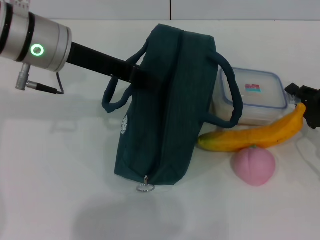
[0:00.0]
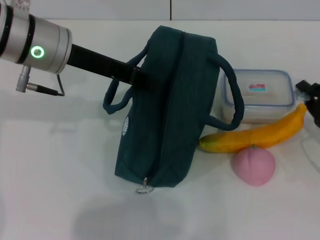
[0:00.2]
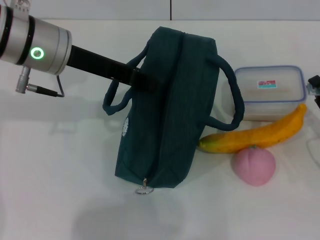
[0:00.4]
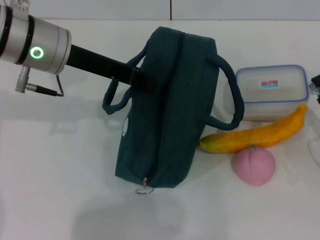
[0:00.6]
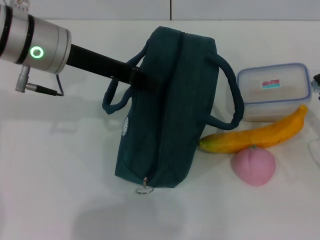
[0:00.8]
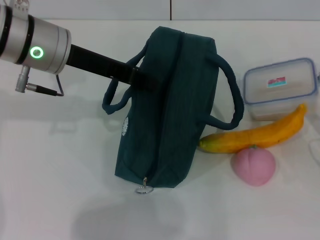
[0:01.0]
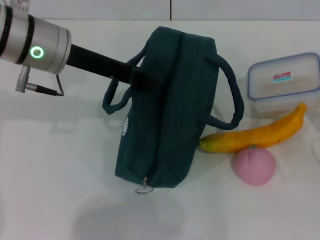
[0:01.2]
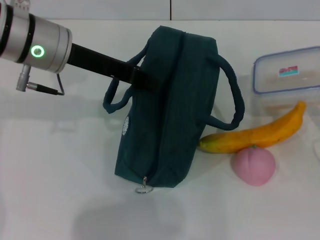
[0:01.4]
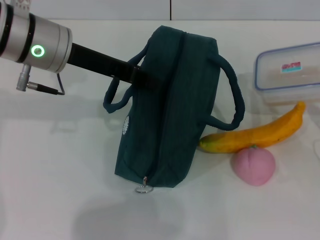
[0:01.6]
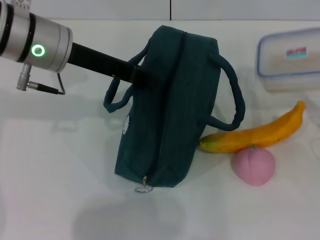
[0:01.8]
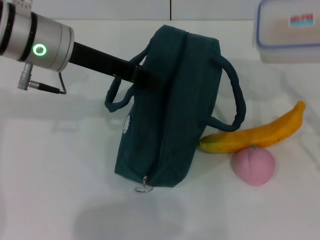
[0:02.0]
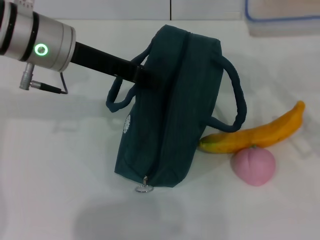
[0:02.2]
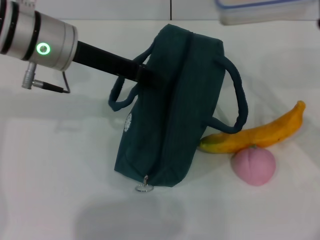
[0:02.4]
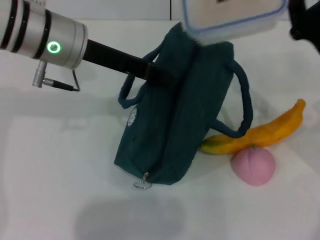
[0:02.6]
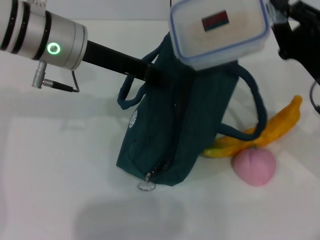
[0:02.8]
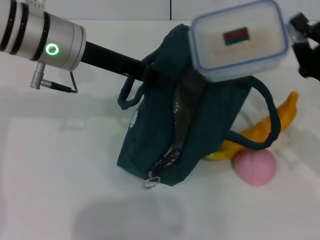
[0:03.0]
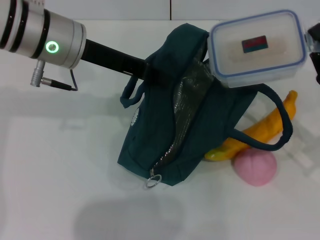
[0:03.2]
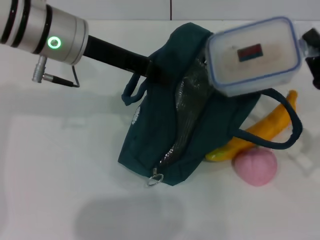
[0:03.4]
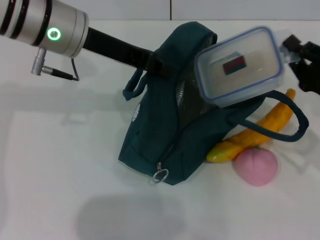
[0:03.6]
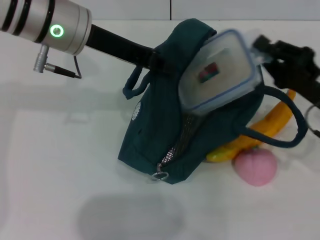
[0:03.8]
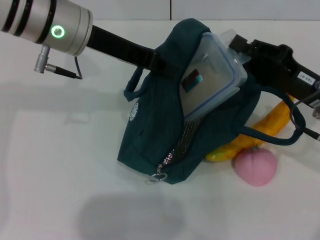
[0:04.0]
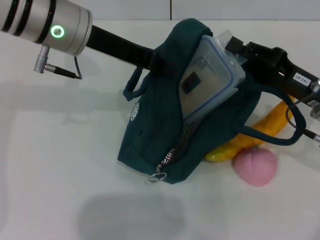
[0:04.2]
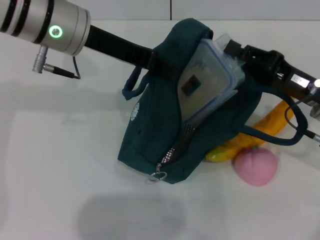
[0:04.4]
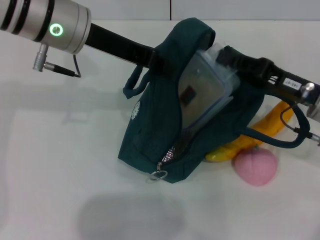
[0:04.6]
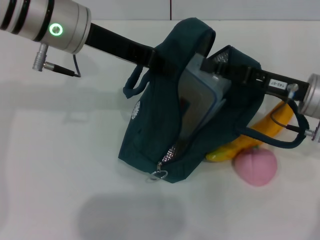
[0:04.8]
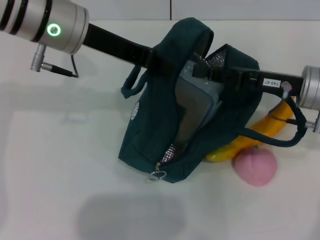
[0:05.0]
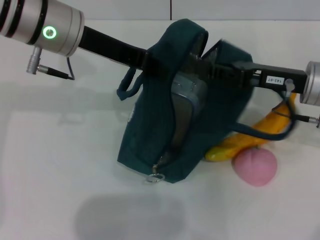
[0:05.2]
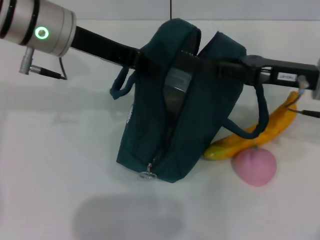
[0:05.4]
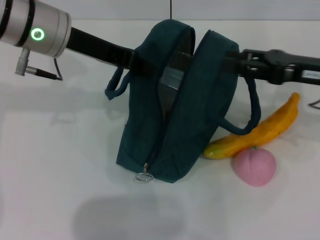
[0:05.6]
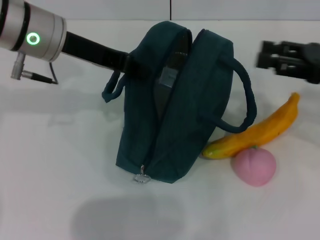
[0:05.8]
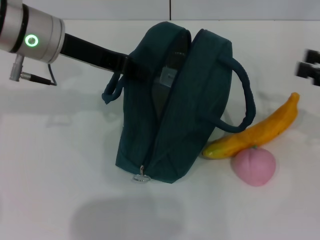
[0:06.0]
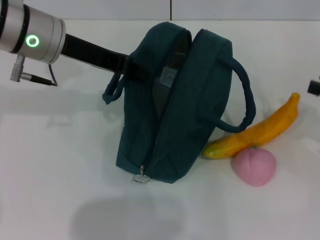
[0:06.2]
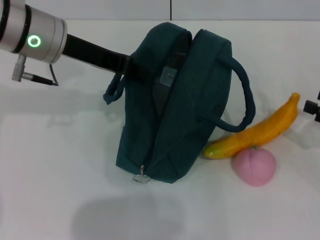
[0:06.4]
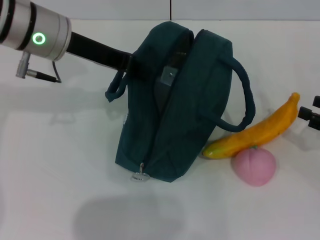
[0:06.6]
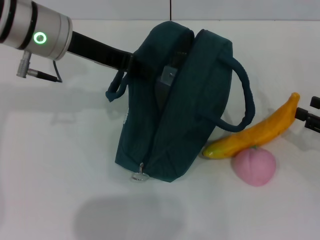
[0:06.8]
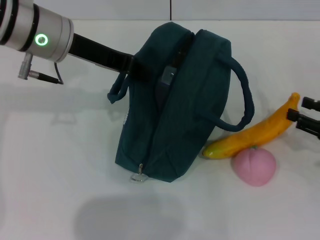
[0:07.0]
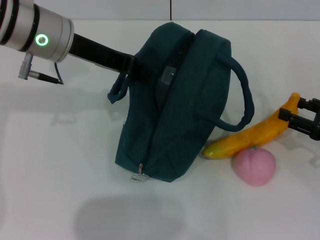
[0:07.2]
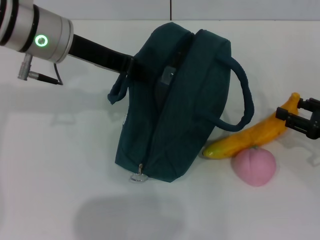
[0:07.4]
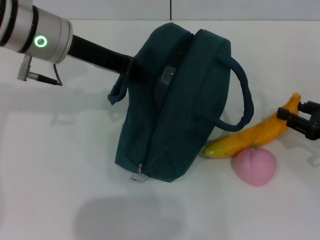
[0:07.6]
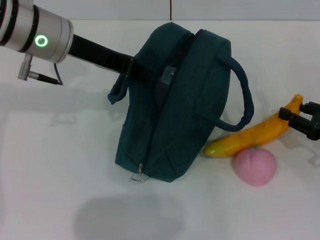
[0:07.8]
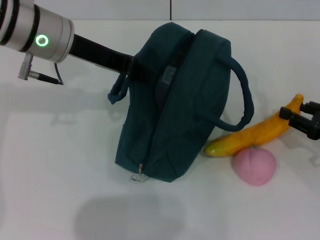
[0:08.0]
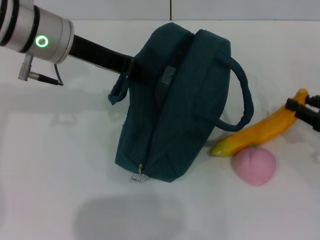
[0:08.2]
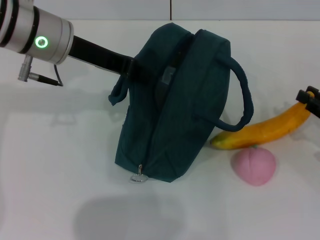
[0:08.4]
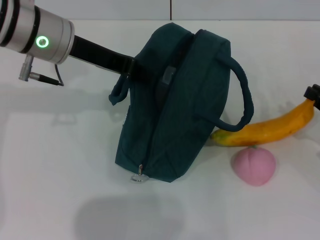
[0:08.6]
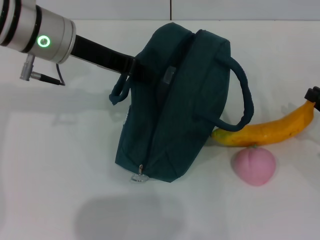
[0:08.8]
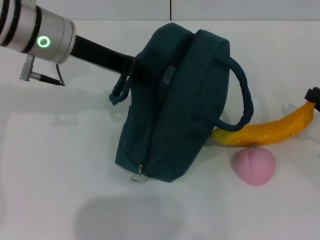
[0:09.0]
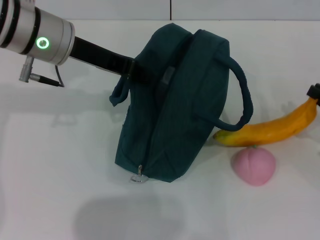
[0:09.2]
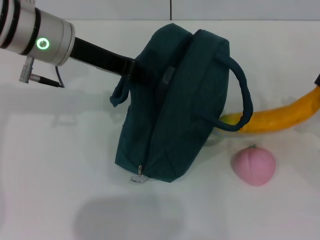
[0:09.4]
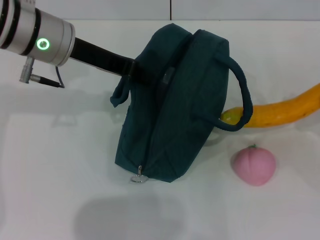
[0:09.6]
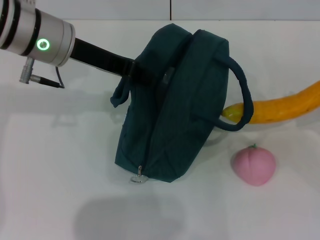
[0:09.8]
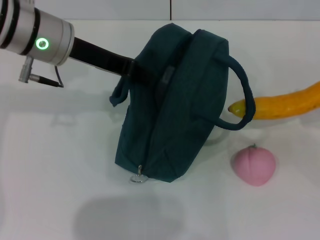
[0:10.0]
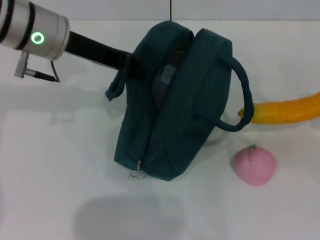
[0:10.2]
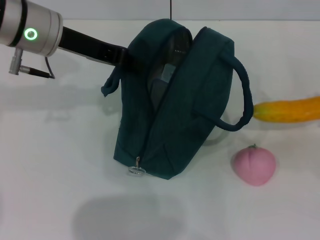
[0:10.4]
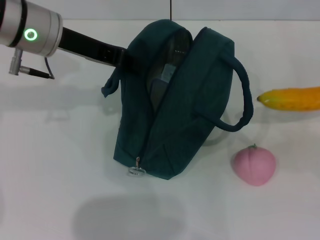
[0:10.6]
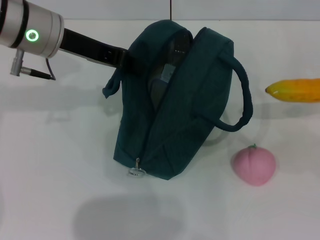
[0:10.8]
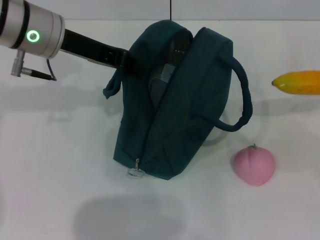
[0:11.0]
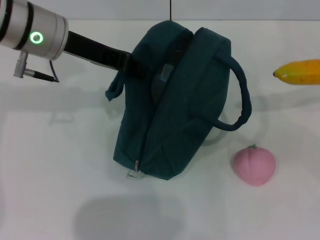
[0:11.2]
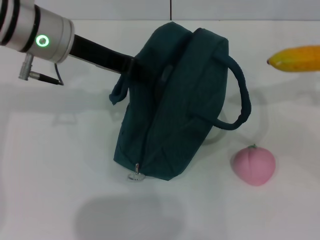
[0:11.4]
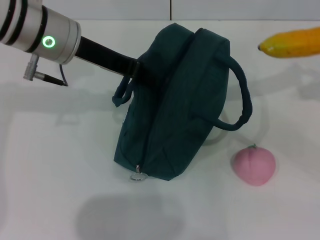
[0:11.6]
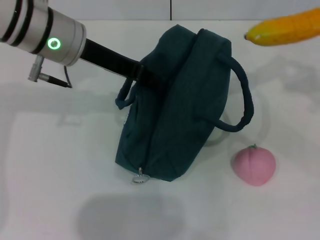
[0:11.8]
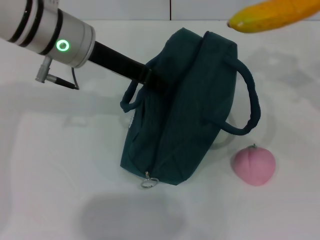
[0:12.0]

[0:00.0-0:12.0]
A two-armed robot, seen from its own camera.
Step, 0:00.0 to 0:05.4: Place the lunch box into the lunch bag with your right hand.
Step, 0:05.6 to 0:08.6: Take the banana with your right hand.
0:01.6 to 0:03.0: The right gripper goes about 5 cm to the left.
0:04.4 to 0:06.0: The right gripper travels to the right and upward by approximately 15 cm, and opens.
0:06.0 to 0:07.6: The right gripper shifts some 10 cm downward.
0:07.6 to 0:09.0: The right gripper closes.
0:09.0 to 0:10.4: The right gripper changes place by approximately 5 cm.
0:10.4 to 0:12.0: The right gripper travels upward, forward and to the left by roughly 15 cm.

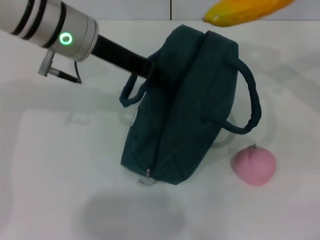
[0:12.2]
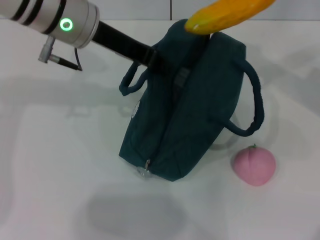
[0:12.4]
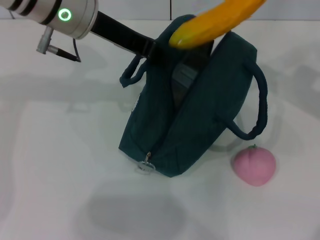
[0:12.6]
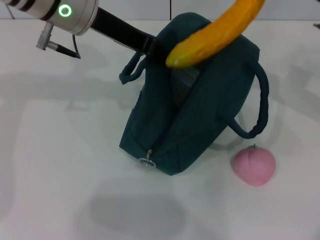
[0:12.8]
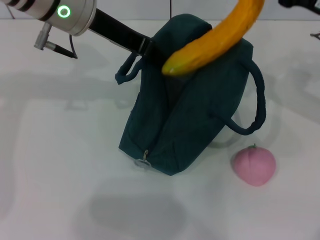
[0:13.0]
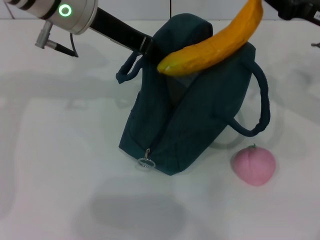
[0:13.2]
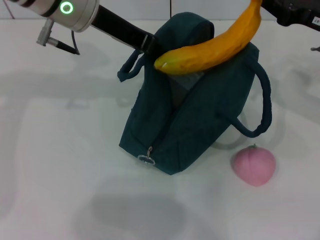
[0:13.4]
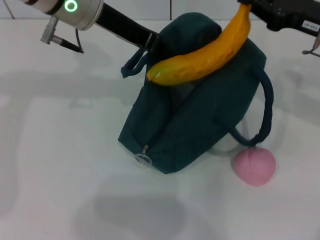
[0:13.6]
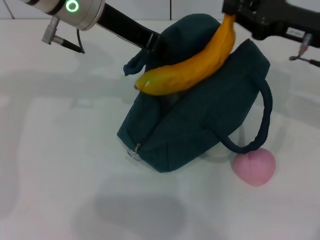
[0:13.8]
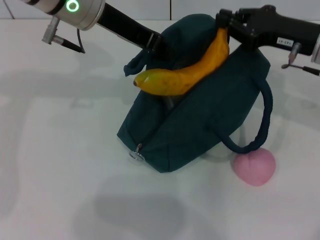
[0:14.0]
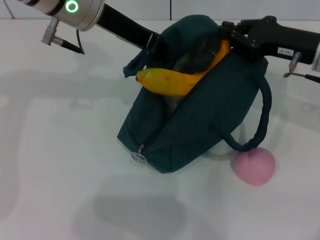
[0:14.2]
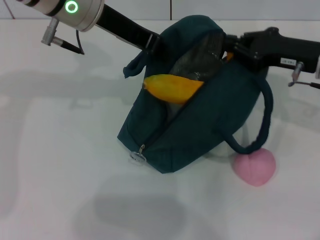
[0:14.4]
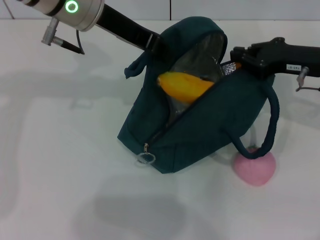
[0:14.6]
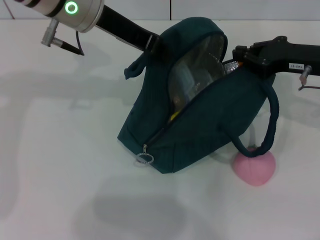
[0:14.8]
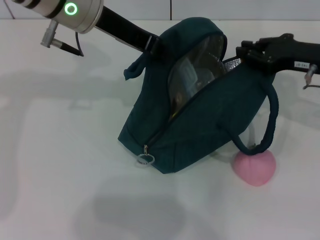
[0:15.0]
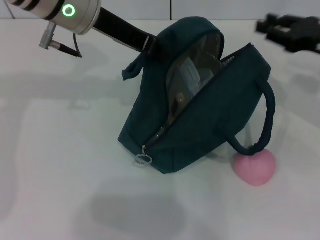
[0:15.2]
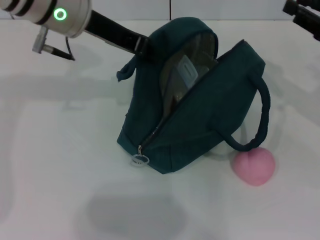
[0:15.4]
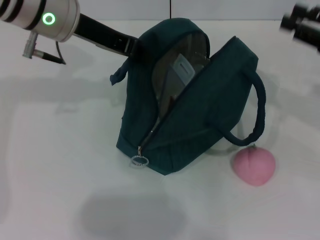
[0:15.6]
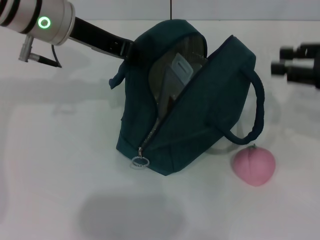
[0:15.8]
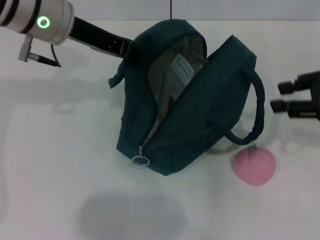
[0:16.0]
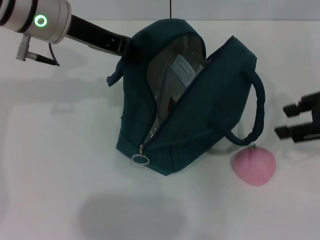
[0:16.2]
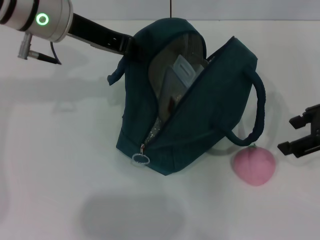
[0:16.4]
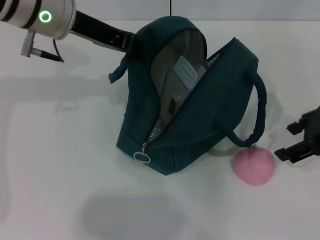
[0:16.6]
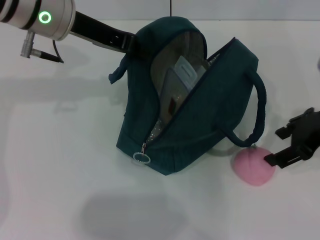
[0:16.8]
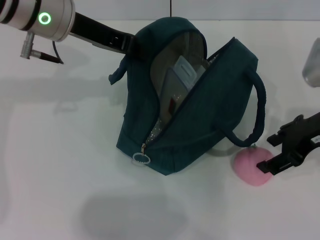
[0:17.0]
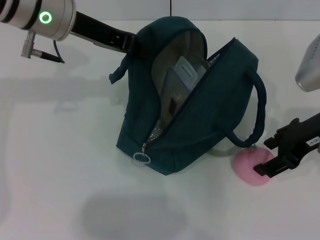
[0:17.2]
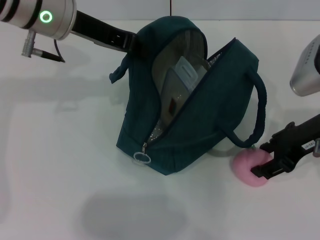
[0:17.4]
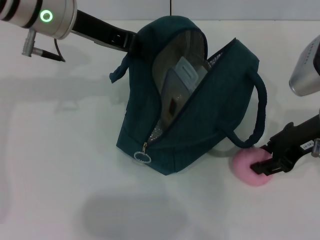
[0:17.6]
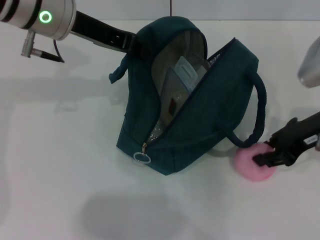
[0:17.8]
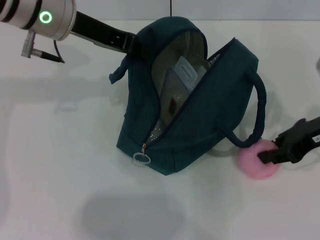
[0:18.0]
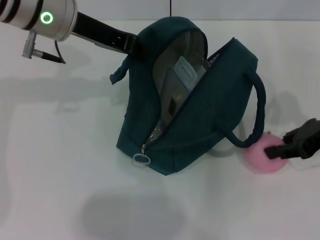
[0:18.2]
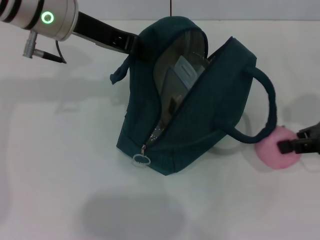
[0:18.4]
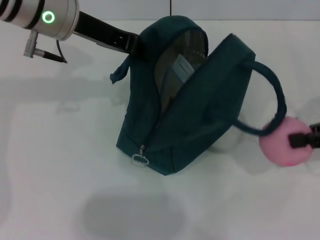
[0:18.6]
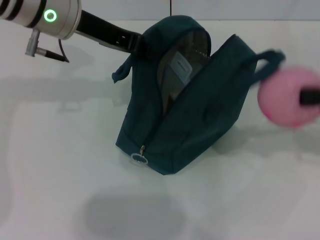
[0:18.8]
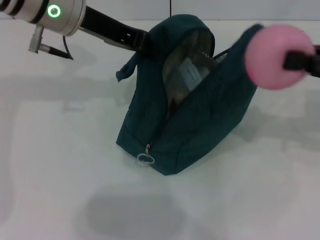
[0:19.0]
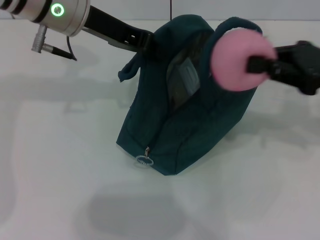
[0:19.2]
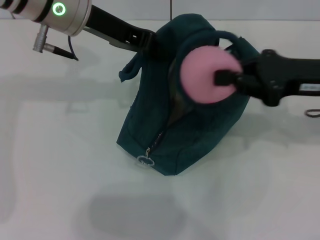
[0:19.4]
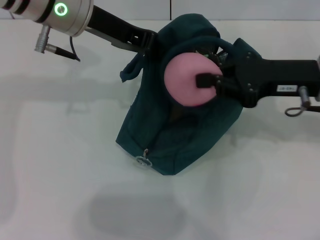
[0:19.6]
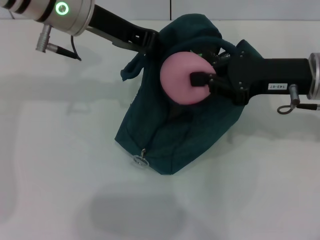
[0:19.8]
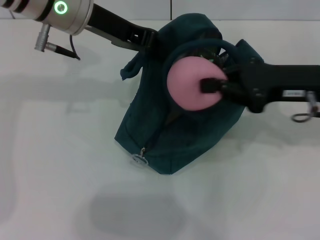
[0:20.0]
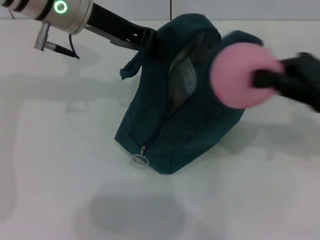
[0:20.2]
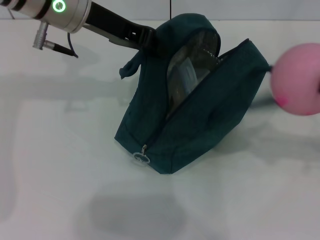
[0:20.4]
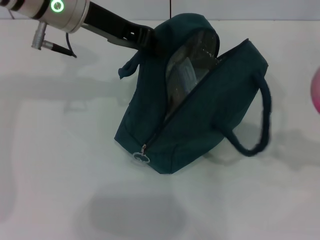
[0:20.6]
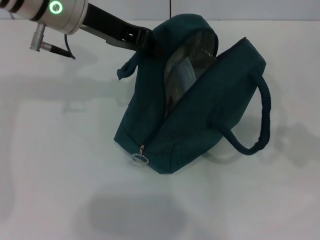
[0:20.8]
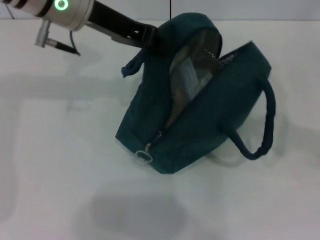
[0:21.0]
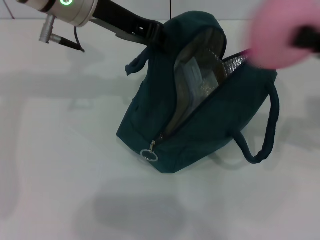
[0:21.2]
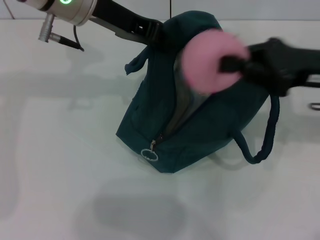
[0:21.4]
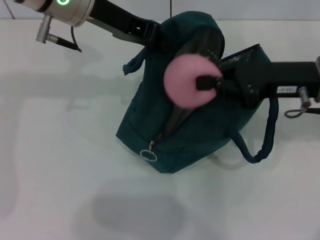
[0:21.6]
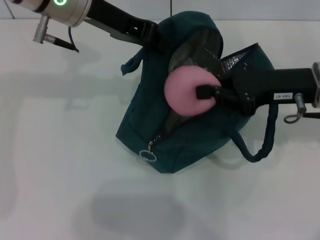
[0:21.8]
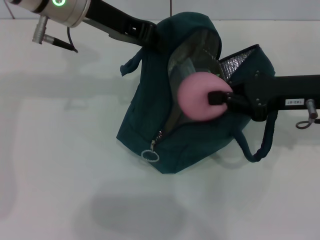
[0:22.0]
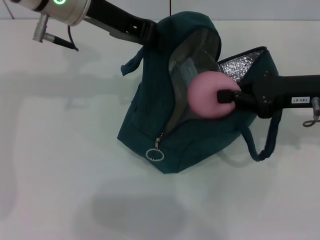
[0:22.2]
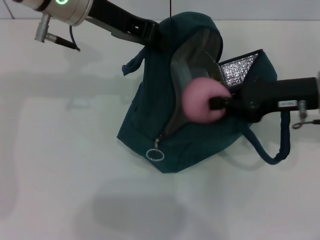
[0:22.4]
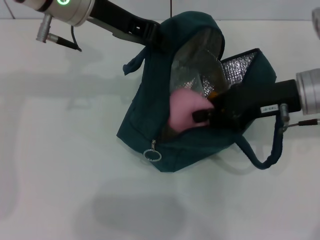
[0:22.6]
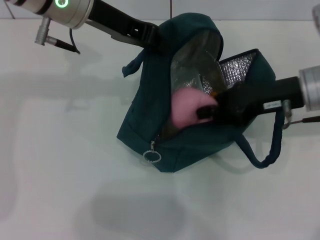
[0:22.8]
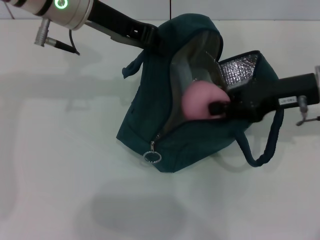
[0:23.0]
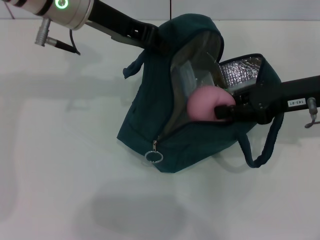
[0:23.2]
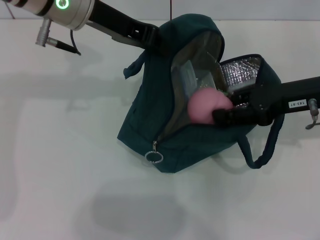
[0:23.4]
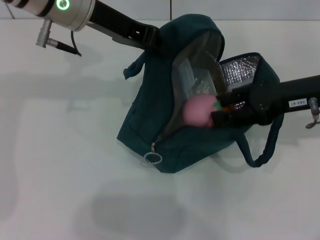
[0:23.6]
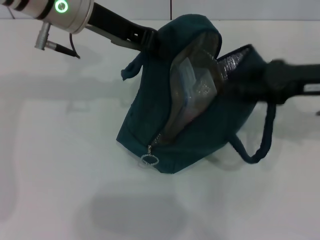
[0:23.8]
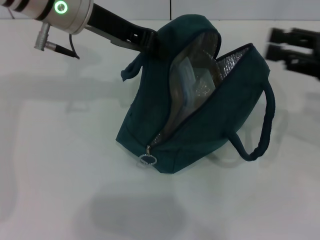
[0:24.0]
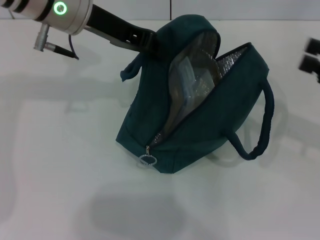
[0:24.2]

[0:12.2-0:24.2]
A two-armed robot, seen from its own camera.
Step, 0:12.2 to 0:15.0: Put the banana into the lunch bag with your right hand.
Step, 0:15.2 to 0:17.8: Grab the peach with your right hand.
0:12.2 to 0:13.8: The right gripper travels to the left by about 5 cm.
0:13.8 to 0:15.2: The right gripper moves to the right, roughly 5 cm.
0:15.2 to 0:16.6: The right gripper is displaced backward by some 5 cm, and opens.
0:16.6 to 0:18.2: The right gripper moves about 5 cm, and closes.
0:18.2 to 0:19.8: The right gripper shifts some 5 cm to the left.
0:19.8 to 0:21.2: The right gripper moves to the right, approximately 10 cm.
0:21.2 to 0:22.6: The right gripper goes approximately 10 cm to the left.
0:22.6 to 0:24.2: The right gripper shifts approximately 15 cm to the right and backward, and opens.
